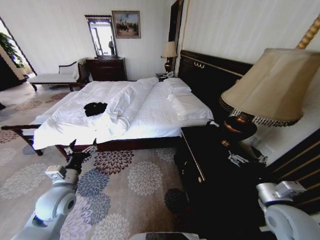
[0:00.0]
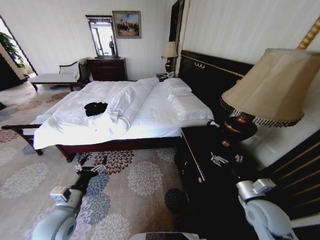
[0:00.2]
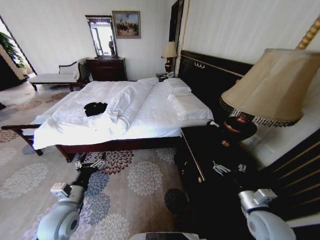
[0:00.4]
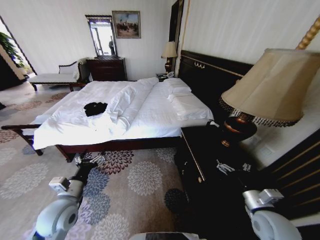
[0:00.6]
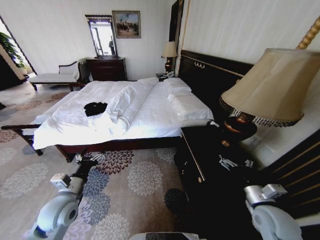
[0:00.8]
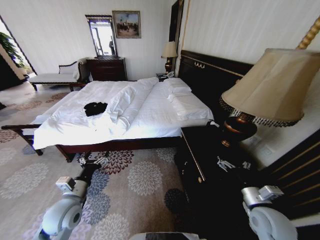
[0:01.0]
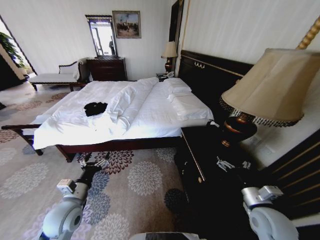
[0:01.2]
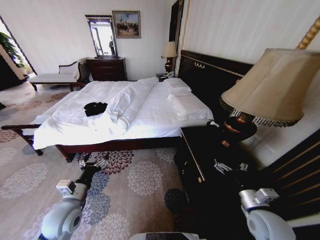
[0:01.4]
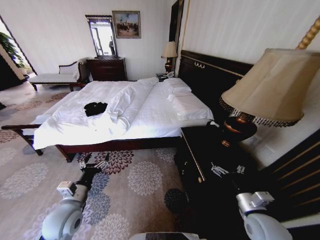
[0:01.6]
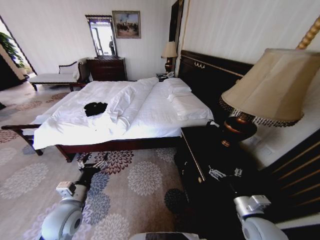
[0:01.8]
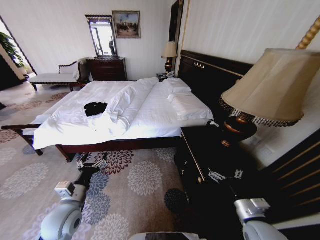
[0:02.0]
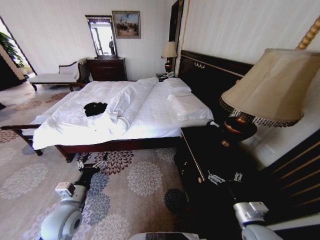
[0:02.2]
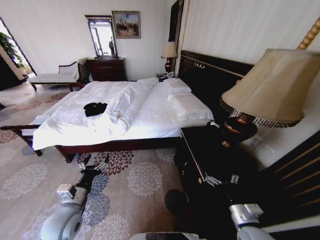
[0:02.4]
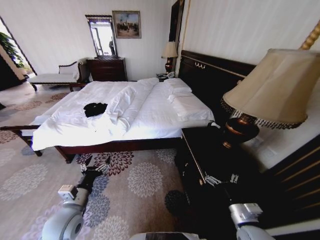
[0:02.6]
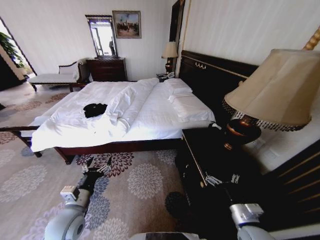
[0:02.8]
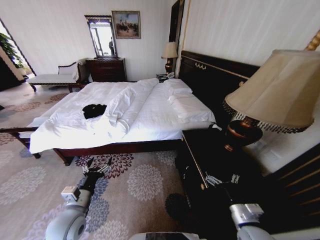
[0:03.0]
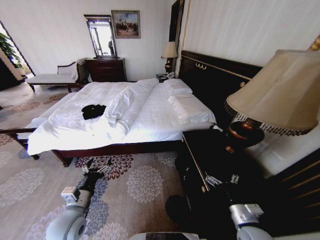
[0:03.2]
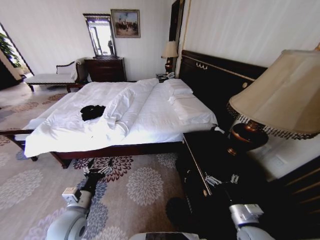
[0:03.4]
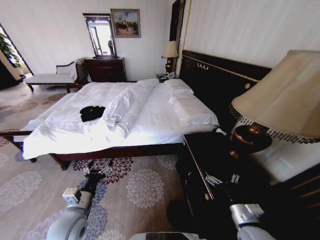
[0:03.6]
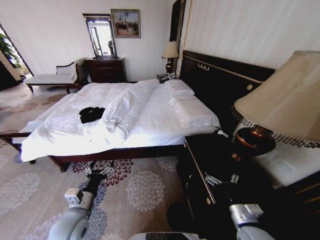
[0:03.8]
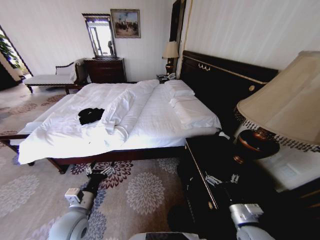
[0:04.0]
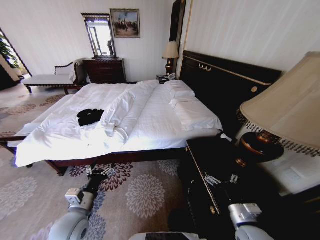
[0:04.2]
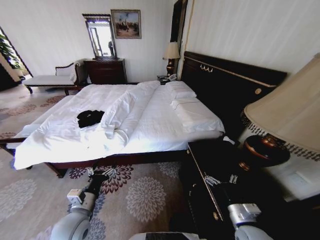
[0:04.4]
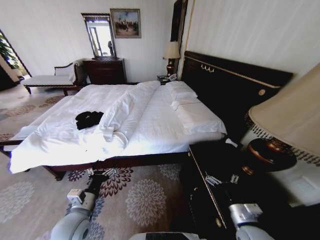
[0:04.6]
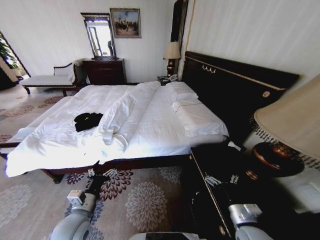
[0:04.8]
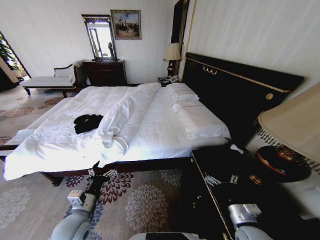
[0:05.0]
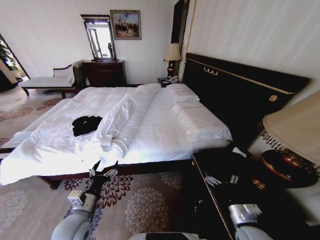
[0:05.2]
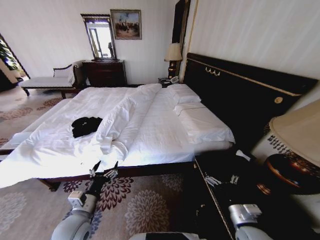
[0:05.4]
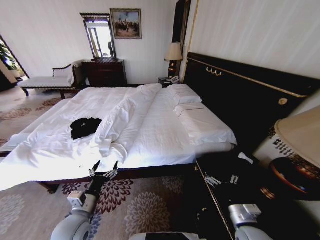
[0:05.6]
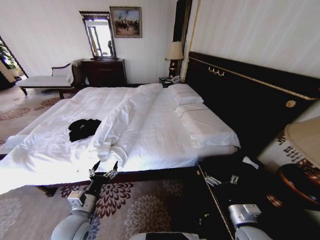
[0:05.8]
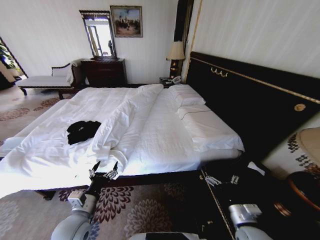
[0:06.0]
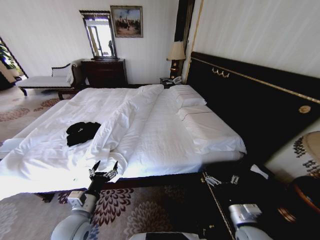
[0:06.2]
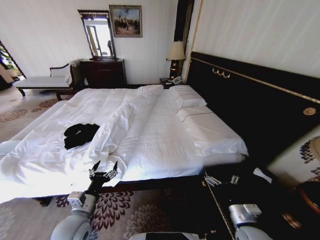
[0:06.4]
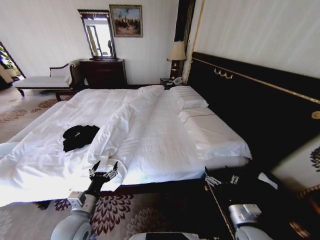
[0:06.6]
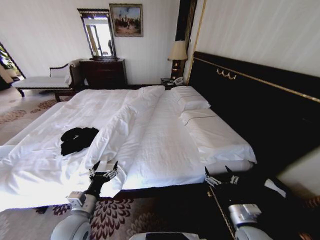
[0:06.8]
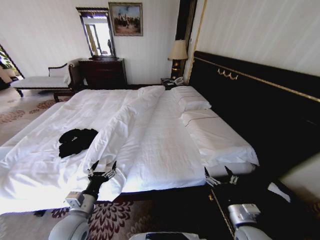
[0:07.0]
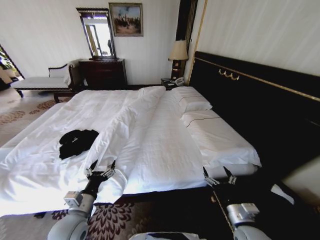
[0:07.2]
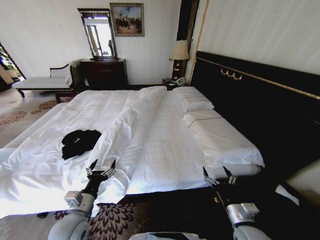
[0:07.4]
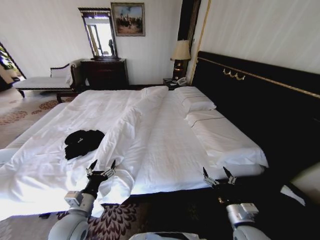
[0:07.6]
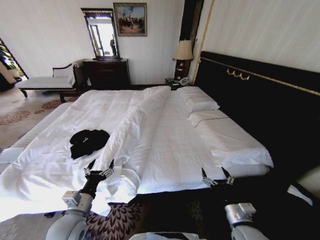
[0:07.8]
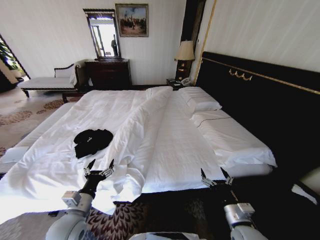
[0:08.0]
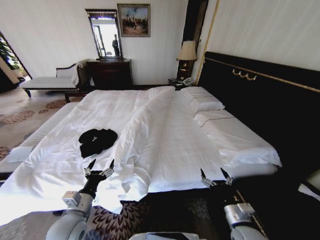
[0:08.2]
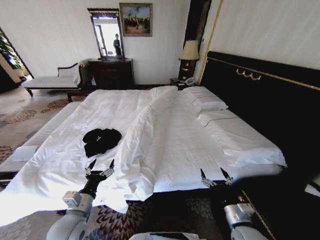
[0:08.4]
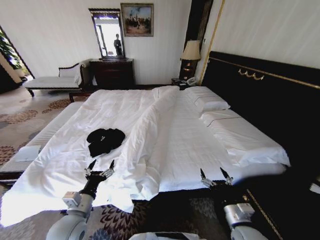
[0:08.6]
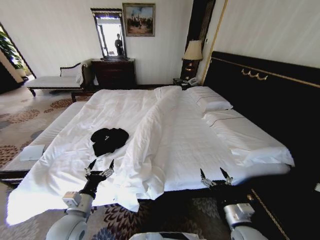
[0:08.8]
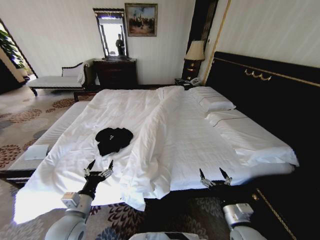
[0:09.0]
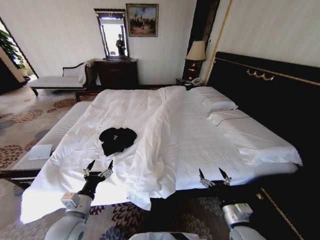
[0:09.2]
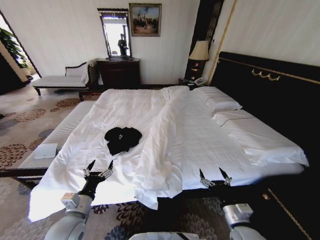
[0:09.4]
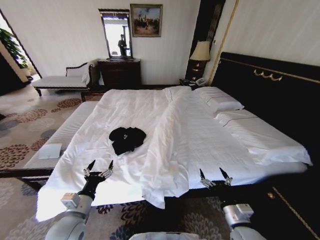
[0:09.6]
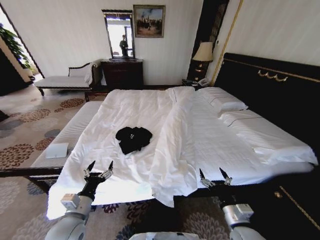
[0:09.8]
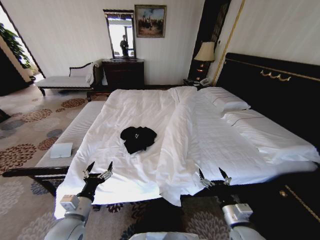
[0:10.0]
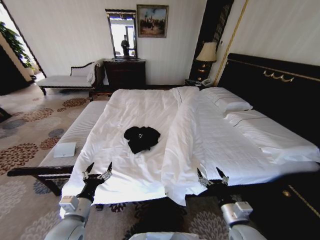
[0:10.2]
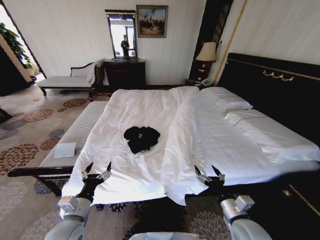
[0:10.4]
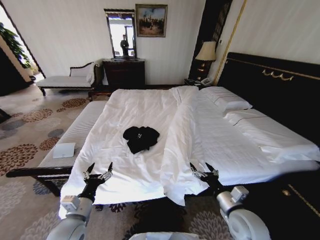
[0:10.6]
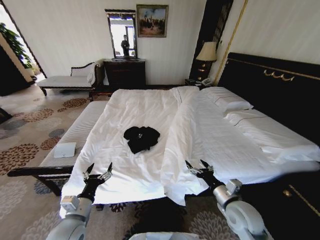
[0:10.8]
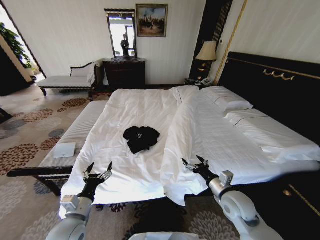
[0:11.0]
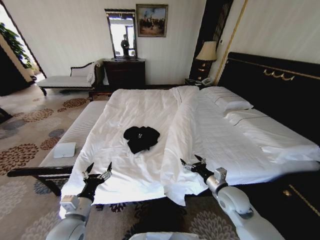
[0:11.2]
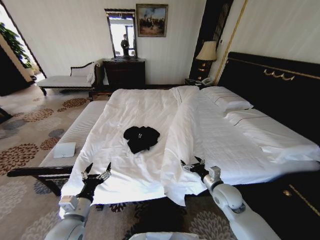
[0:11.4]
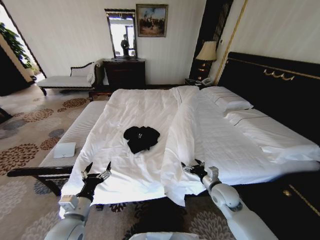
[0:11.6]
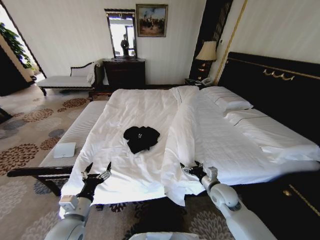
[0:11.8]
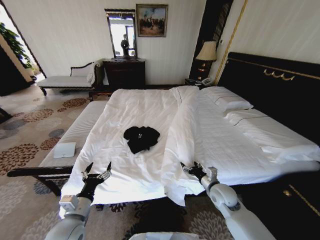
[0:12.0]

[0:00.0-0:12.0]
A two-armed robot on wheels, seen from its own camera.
Task of the whole recording: Fold the clothes on the bed.
0:01.6 to 0:03.0: The right gripper ends up about 5 cm from where it was.
0:10.4 to 0:12.0: The right gripper is displaced forward by some 15 cm.

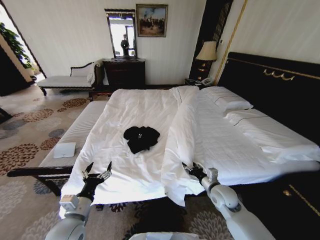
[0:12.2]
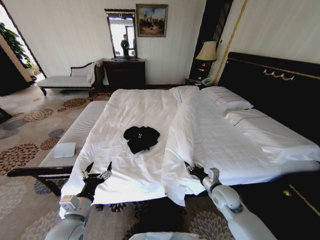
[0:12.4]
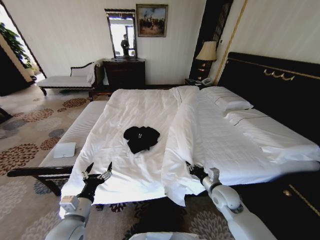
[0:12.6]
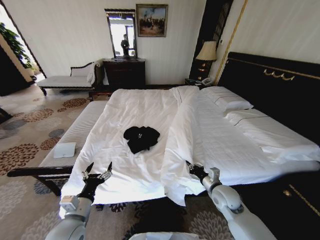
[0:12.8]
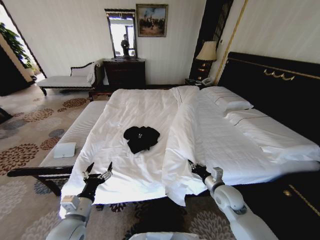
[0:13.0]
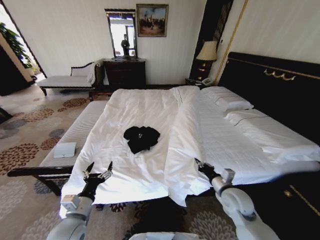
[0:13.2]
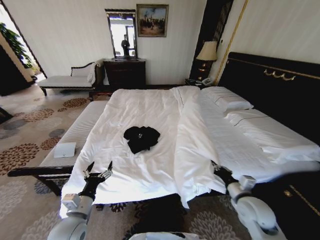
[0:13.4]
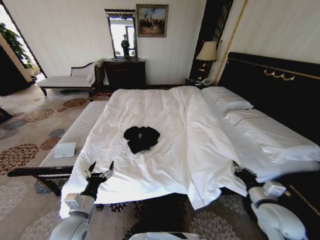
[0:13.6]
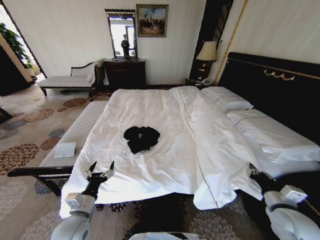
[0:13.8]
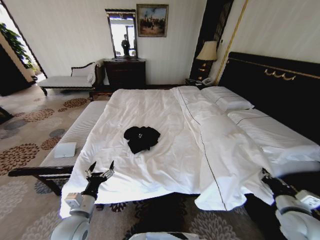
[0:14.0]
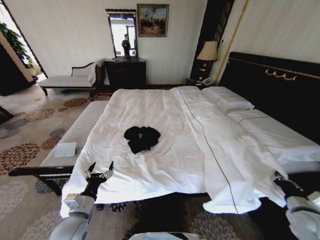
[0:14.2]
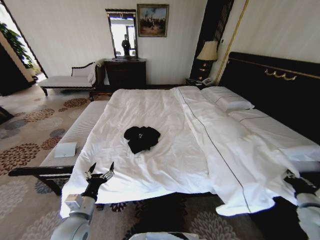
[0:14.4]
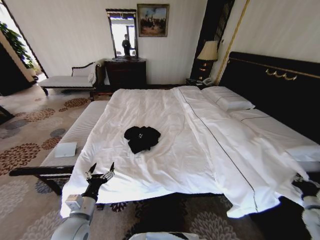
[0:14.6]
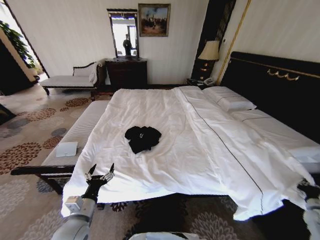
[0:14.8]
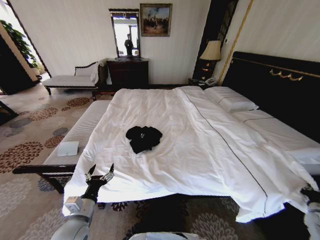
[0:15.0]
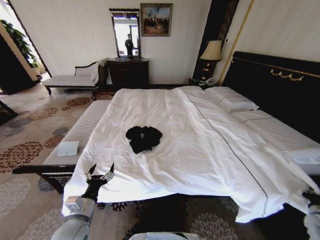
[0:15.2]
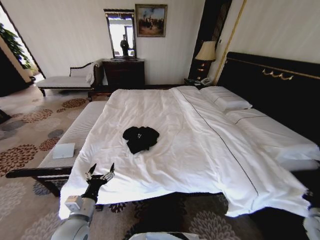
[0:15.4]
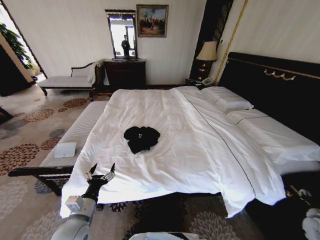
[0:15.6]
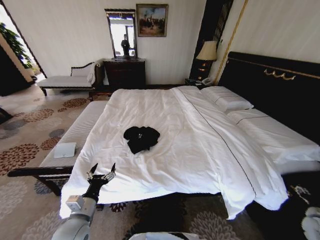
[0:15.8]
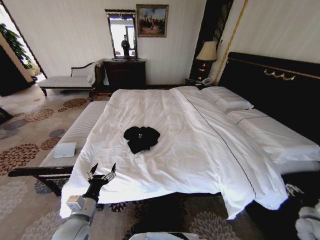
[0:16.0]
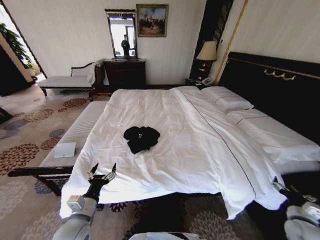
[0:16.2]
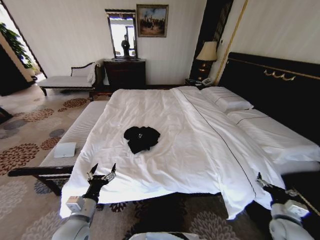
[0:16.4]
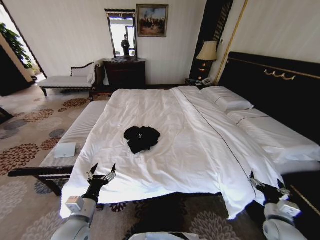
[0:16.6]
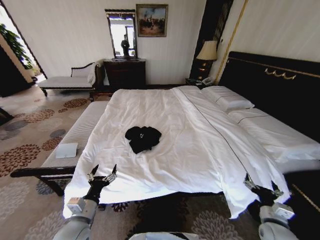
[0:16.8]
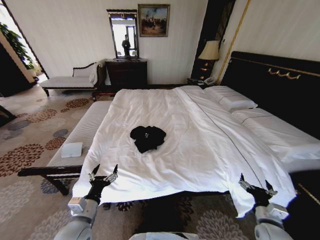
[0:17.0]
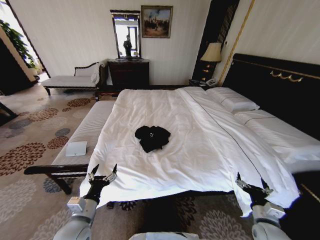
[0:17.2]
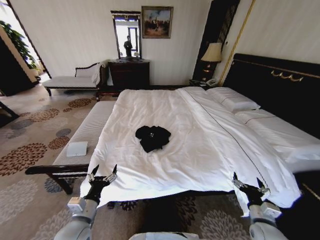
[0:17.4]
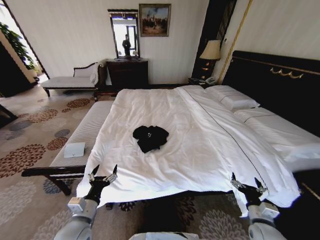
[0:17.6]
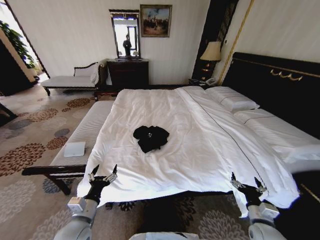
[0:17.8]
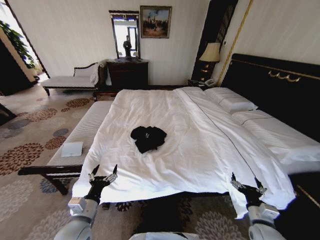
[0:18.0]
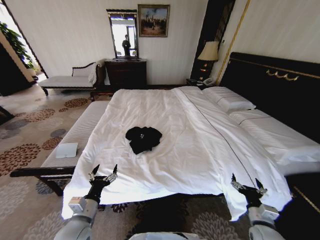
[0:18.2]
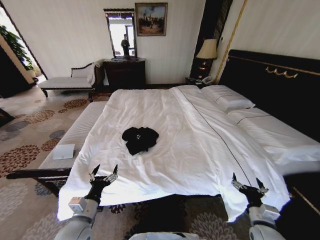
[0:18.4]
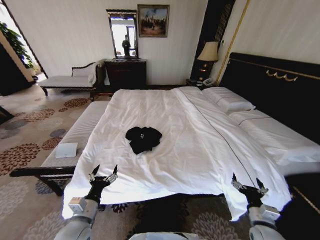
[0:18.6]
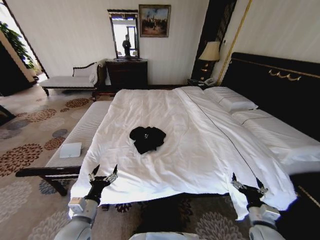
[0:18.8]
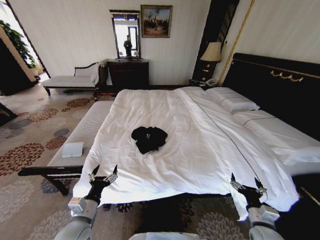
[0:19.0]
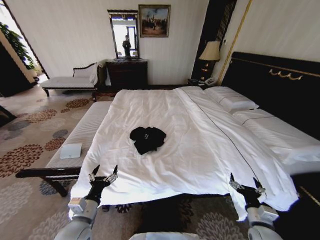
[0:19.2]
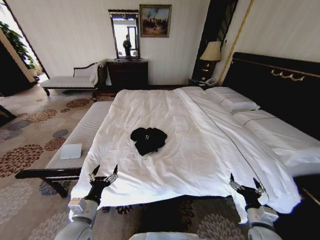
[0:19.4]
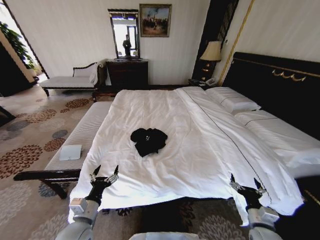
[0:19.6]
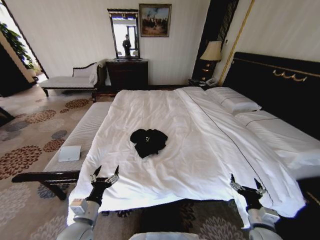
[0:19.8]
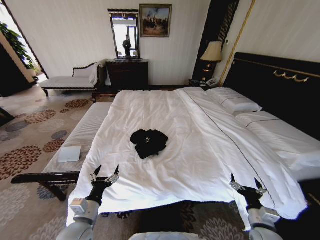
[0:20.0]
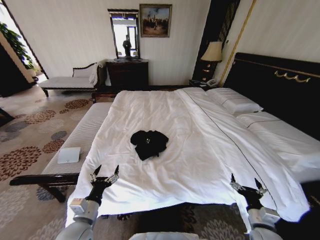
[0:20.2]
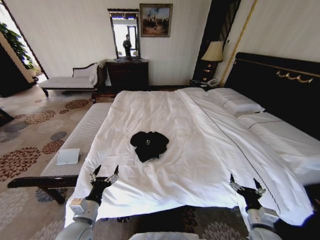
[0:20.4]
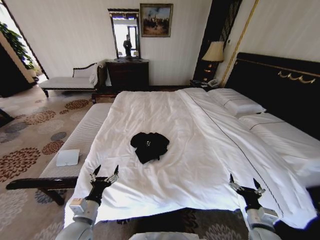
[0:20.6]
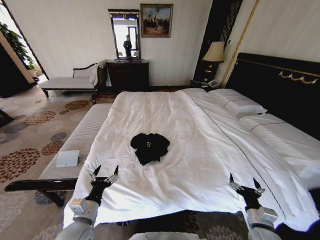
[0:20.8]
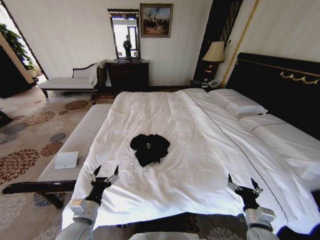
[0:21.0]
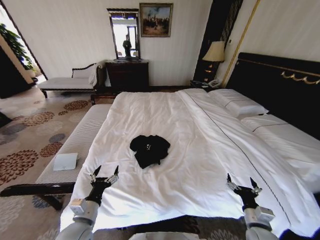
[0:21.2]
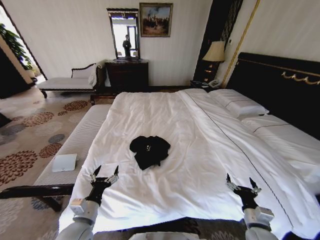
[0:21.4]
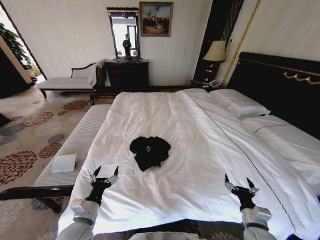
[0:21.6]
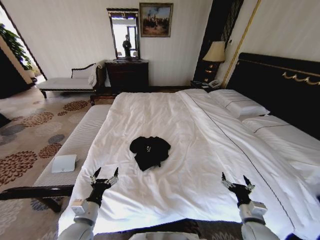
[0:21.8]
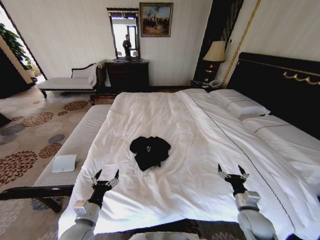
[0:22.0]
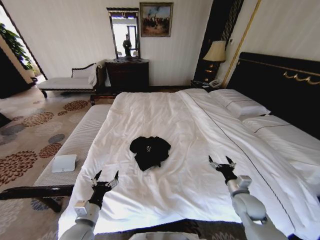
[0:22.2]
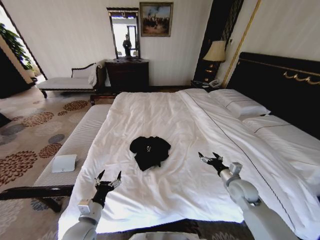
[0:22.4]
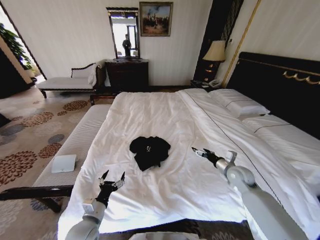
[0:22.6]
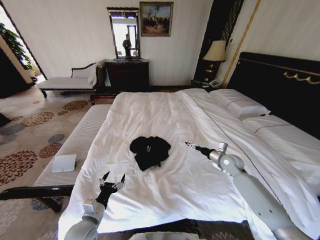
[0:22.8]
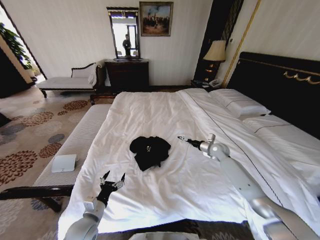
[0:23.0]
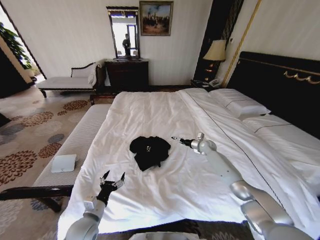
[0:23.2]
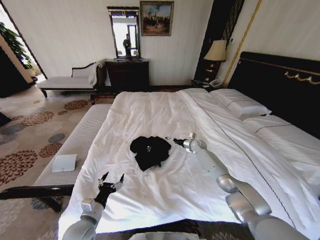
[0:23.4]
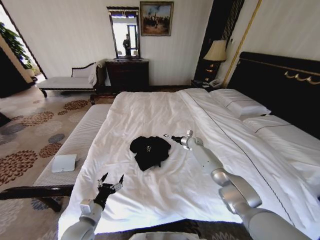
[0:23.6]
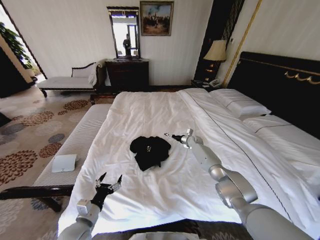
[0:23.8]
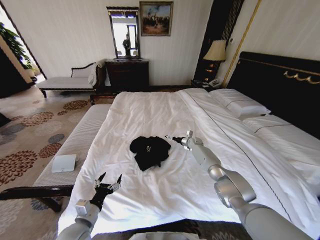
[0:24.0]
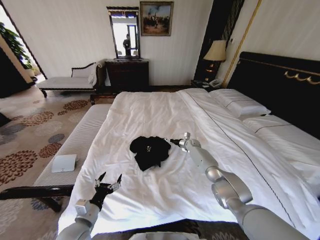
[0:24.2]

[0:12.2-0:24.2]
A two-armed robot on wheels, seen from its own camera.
Task of the whole recording: Fold the clothes on the bed.
0:12.2 to 0:13.8: The right gripper goes some 20 cm to the right, backward and upward, and closes its fingers.
0:13.8 to 0:15.2: The right gripper is displaced to the right and downward by about 25 cm.
0:15.2 to 0:16.6: The right gripper is displaced to the left by approximately 20 cm, and opens up.
0:16.6 to 0:18.2: The right gripper heads to the left, covering about 5 cm.
0:18.2 to 0:19.8: The two grippers keep their place.
0:21.2 to 0:22.6: The right gripper shifts approximately 20 cm forward.
0:22.6 to 0:24.2: The right gripper shifts about 25 cm forward.
